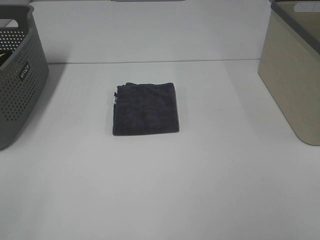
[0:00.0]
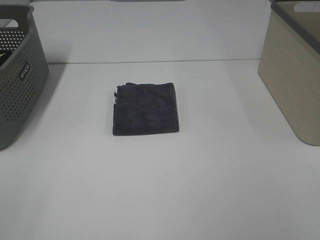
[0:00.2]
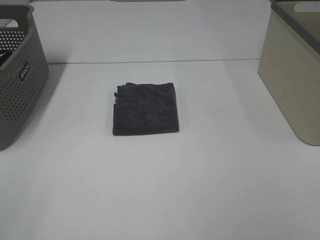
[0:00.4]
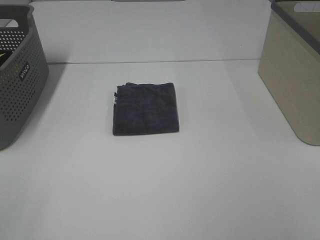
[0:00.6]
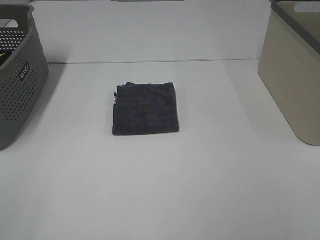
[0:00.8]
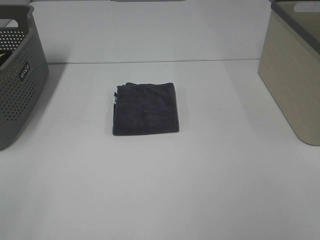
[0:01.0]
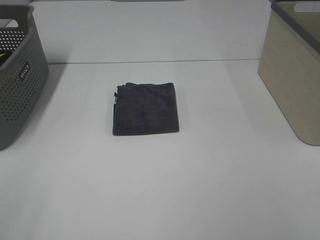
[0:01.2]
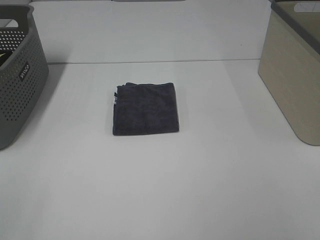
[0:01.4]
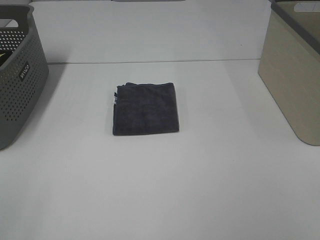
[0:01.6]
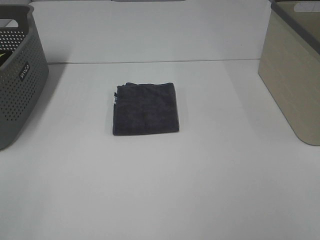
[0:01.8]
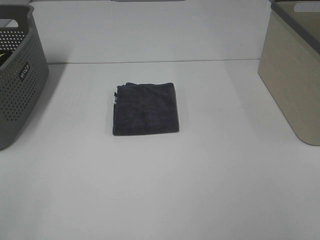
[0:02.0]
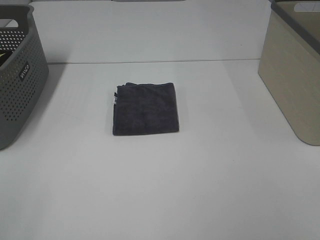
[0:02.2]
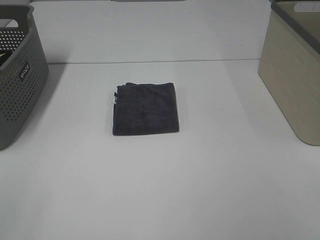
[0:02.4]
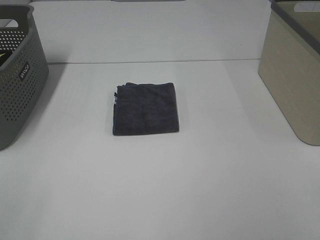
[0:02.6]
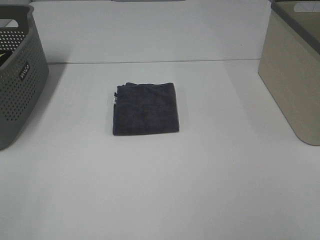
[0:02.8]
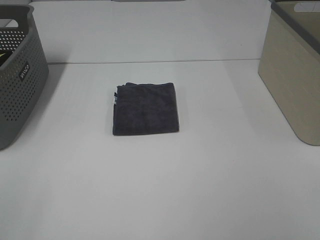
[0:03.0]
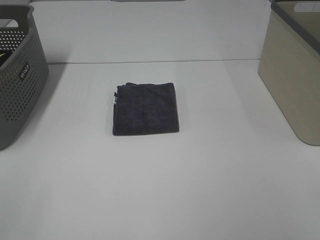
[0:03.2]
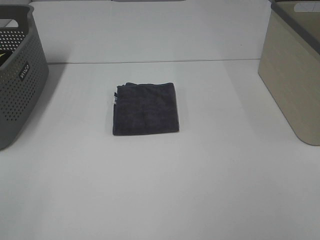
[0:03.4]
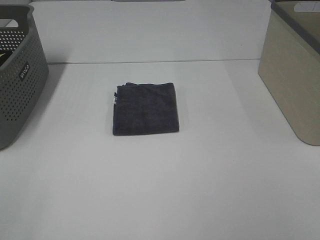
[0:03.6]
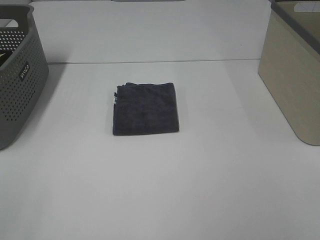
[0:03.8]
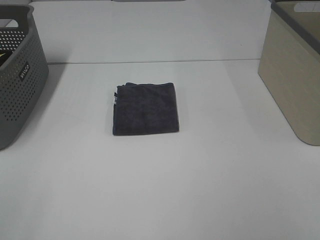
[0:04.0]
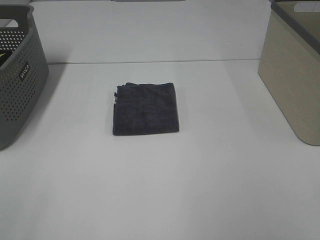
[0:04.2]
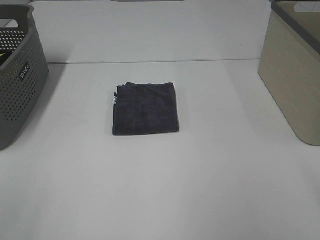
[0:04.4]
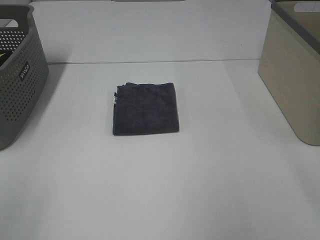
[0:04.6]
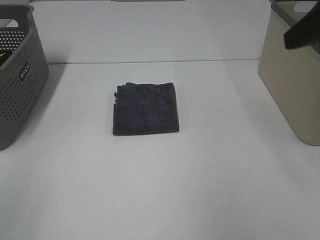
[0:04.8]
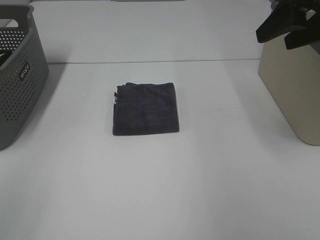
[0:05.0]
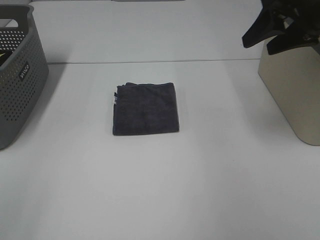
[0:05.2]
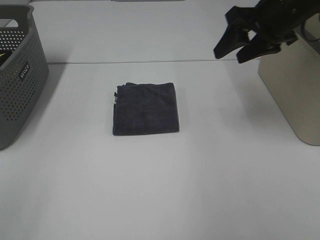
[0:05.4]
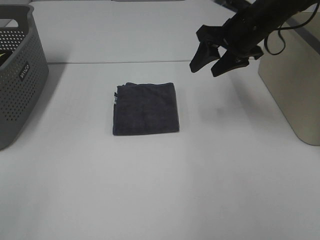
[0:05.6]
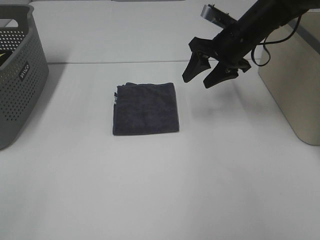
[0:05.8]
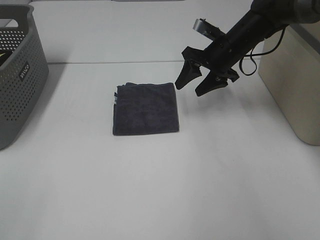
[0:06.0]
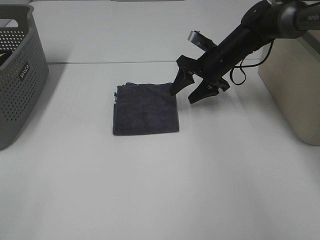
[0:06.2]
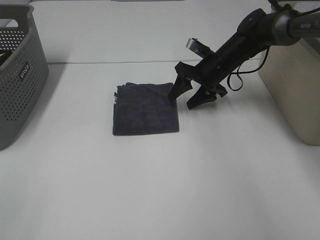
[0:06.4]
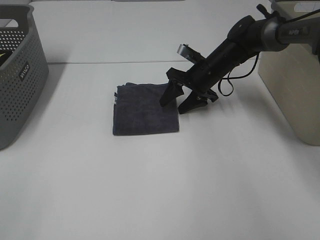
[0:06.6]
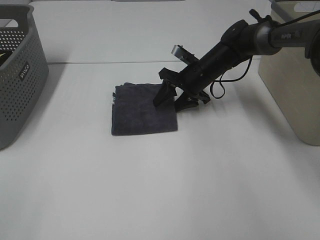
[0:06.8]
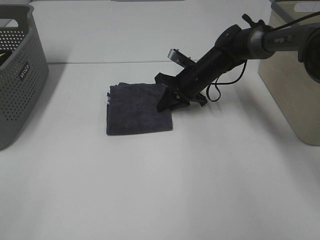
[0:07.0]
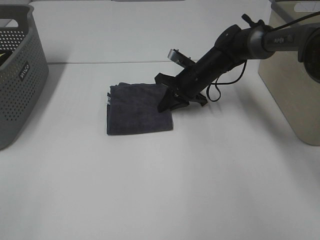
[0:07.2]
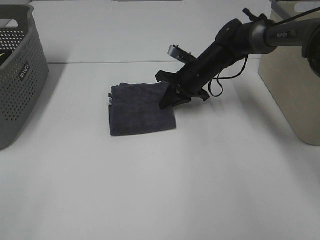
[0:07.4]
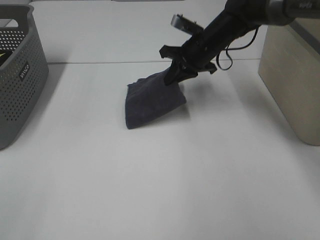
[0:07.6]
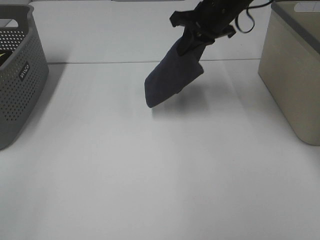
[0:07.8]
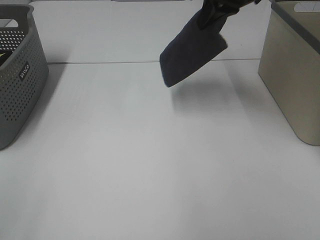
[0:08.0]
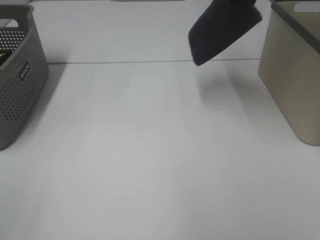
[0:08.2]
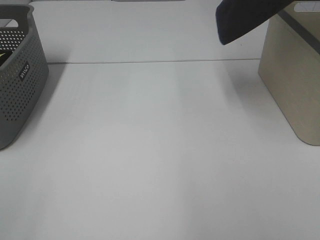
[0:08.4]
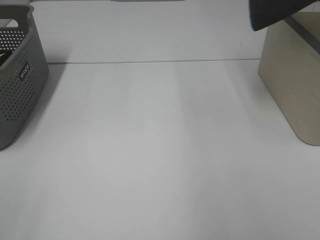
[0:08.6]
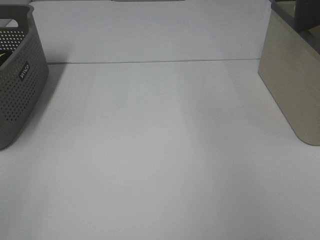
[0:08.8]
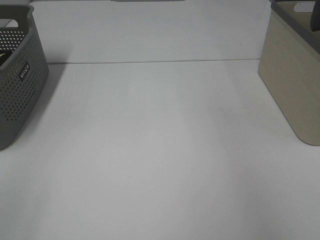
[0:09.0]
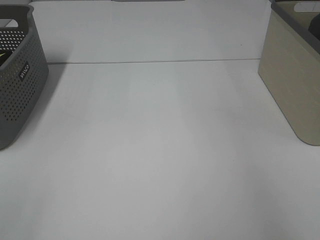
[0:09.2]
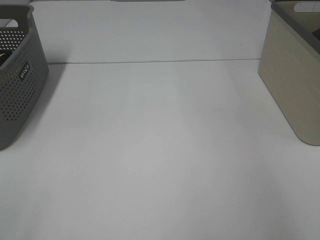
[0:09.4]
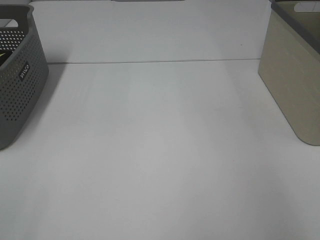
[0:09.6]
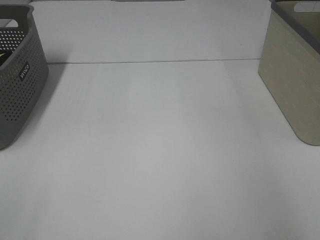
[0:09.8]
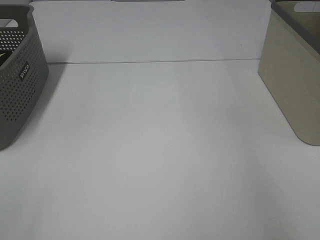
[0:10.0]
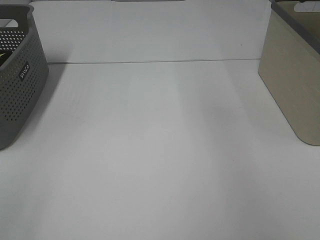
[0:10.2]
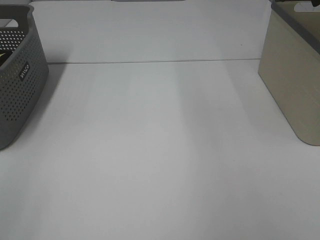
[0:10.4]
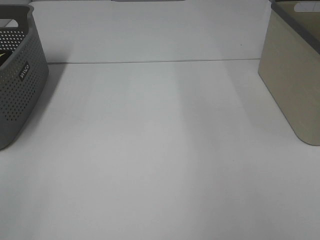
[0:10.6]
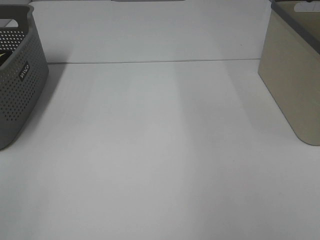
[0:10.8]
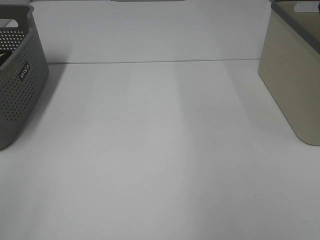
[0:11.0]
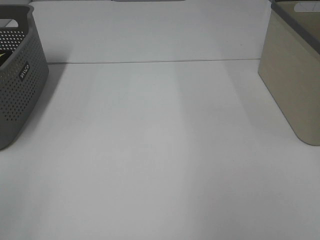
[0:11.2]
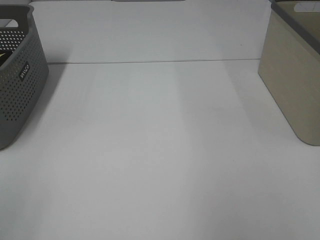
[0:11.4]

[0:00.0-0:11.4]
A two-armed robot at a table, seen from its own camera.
Step, 0:00.0 to 0:07.2: Right hand: grab the folded grey towel.
Step, 0:07.4 to 0:09.8: Right hand: place the grey towel in right basket.
0:00.0 to 0:02.8: Both grippers stay about where they are.
0:04.2 to 0:05.6: The right gripper goes roughly 35 cm forward.
0:05.6 to 0:07.2: The right gripper heads downward and to the left, covering approximately 15 cm, and closes its fingers.
0:07.2 to 0:08.6: The right gripper is displaced upward and to the right by roughly 40 cm.
0:08.6 to 0:10.0: The right gripper moves downward, to the right and forward, approximately 15 cm, and opens.

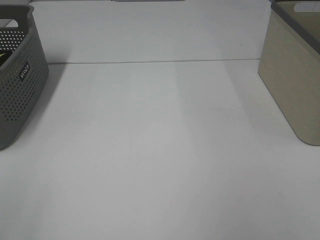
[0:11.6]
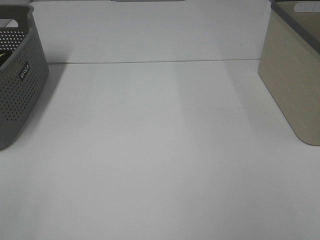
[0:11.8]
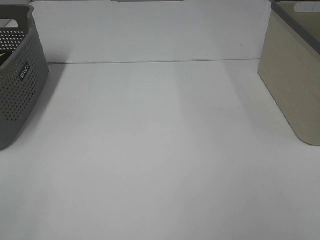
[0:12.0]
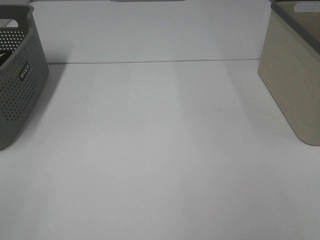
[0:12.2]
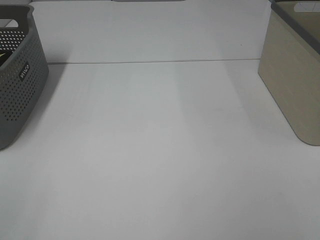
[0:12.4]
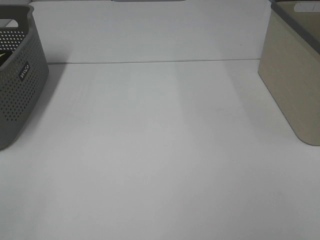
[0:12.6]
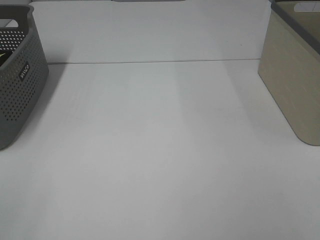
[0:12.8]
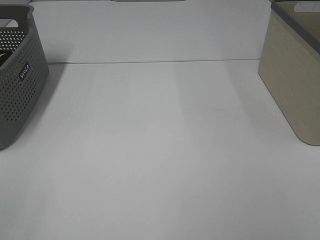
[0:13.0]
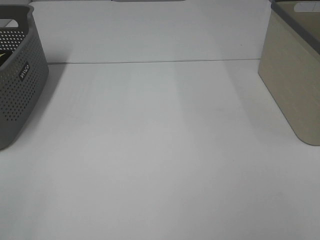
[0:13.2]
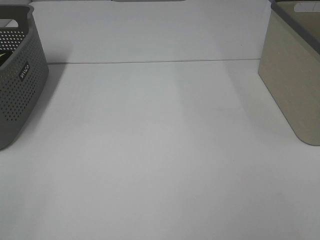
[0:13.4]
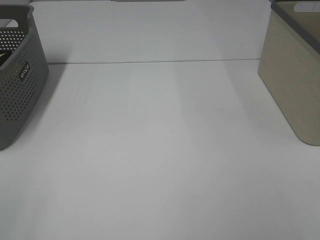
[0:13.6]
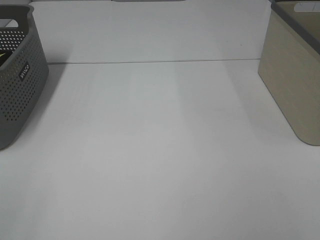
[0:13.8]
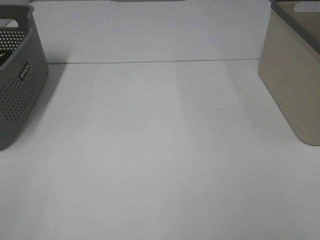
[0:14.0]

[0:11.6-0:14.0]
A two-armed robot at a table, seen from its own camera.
0:12.8 to 0:14.0: Neither gripper changes place.

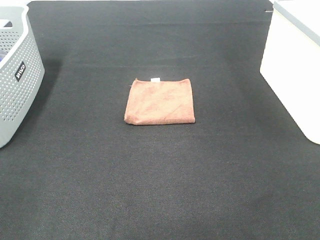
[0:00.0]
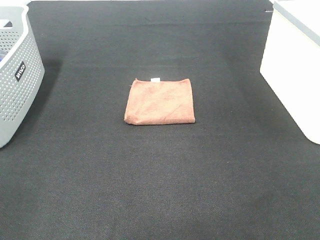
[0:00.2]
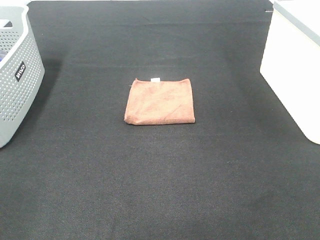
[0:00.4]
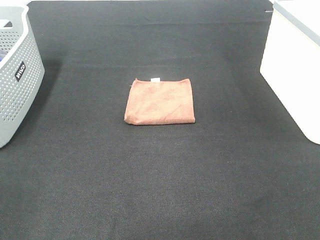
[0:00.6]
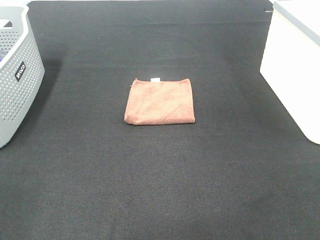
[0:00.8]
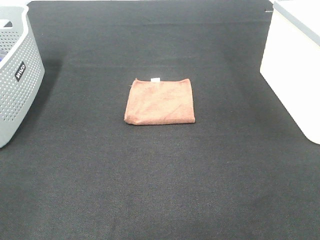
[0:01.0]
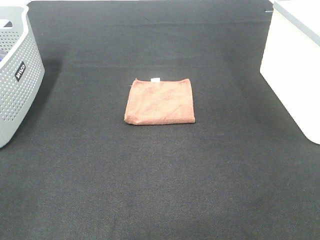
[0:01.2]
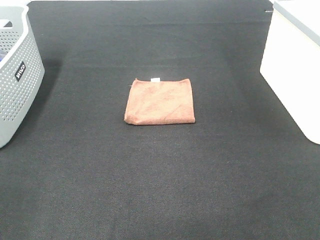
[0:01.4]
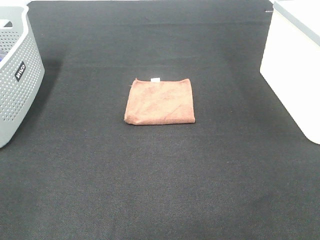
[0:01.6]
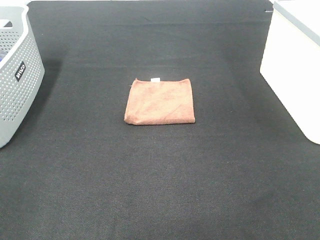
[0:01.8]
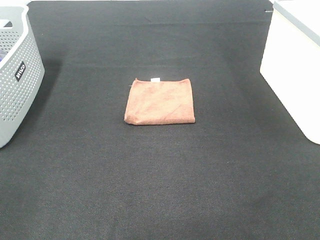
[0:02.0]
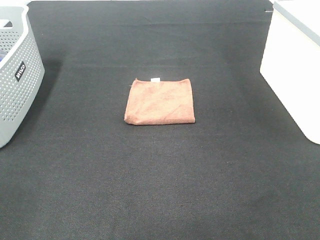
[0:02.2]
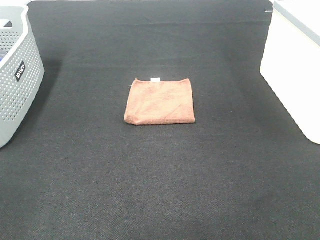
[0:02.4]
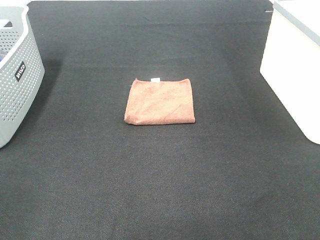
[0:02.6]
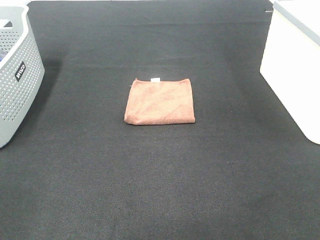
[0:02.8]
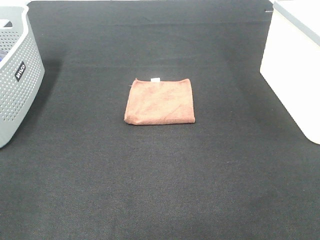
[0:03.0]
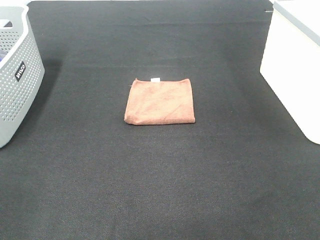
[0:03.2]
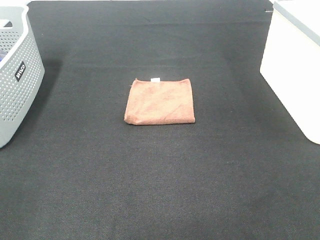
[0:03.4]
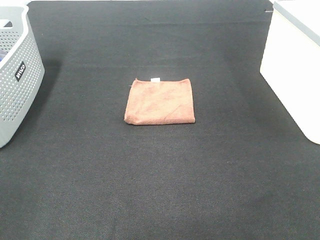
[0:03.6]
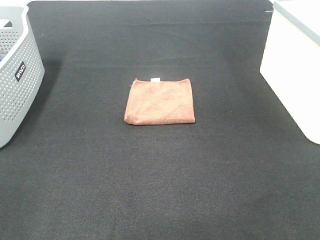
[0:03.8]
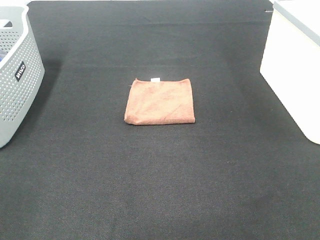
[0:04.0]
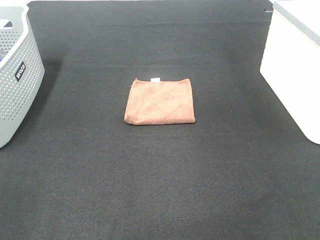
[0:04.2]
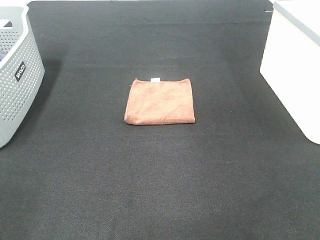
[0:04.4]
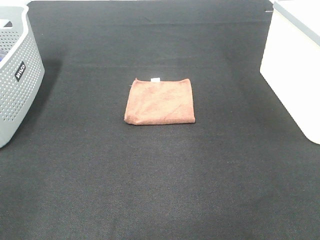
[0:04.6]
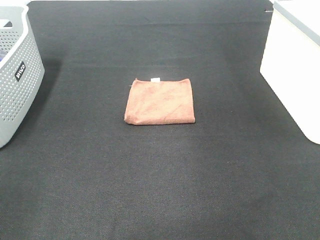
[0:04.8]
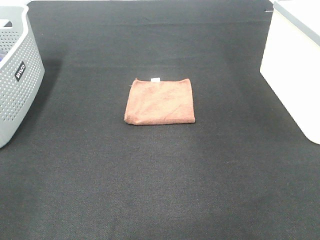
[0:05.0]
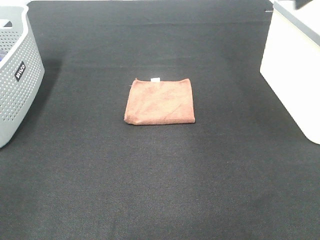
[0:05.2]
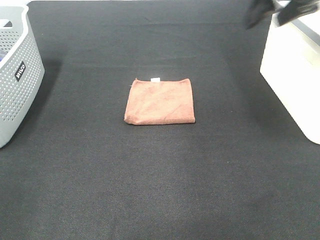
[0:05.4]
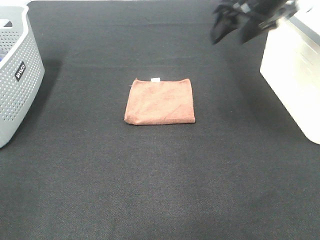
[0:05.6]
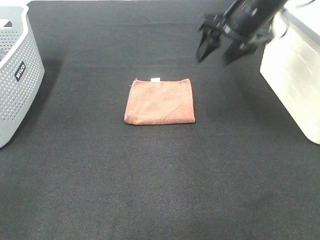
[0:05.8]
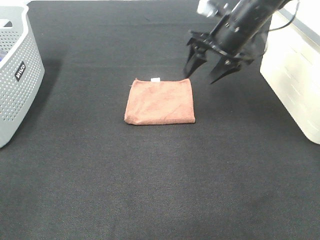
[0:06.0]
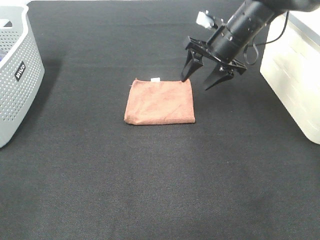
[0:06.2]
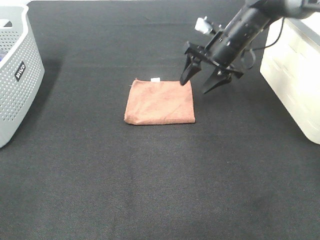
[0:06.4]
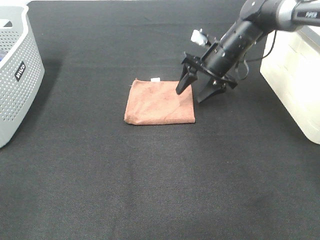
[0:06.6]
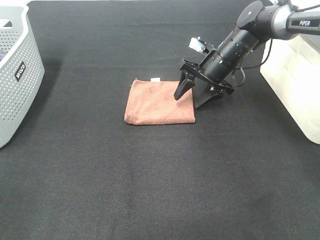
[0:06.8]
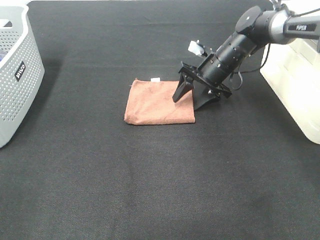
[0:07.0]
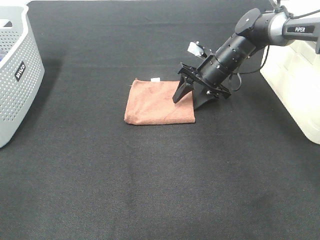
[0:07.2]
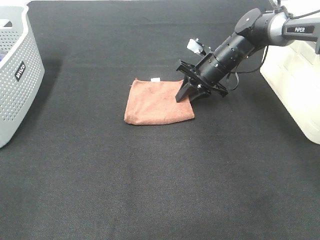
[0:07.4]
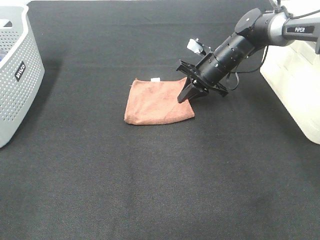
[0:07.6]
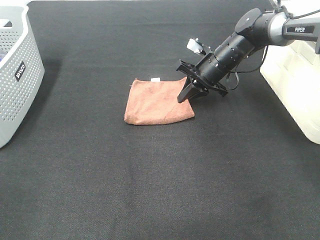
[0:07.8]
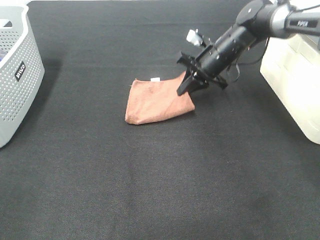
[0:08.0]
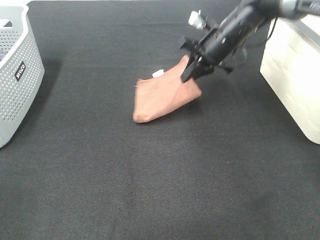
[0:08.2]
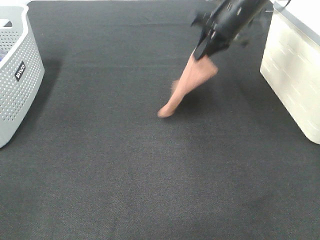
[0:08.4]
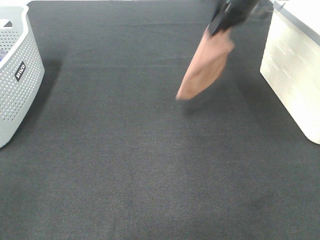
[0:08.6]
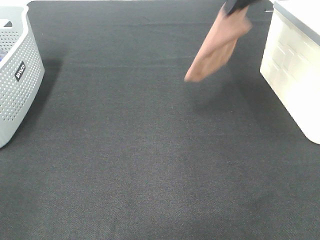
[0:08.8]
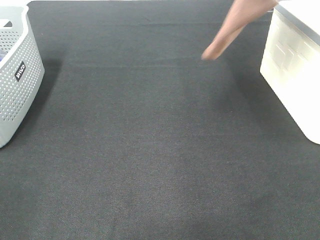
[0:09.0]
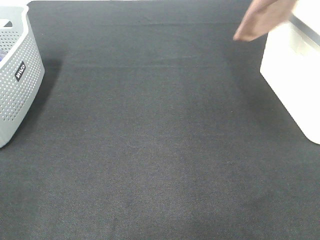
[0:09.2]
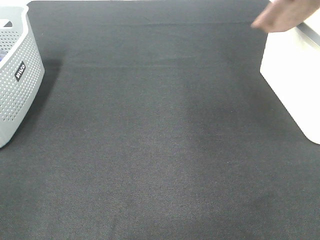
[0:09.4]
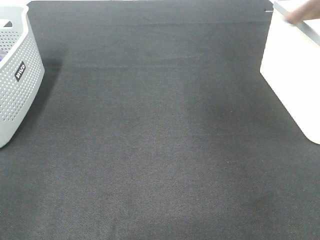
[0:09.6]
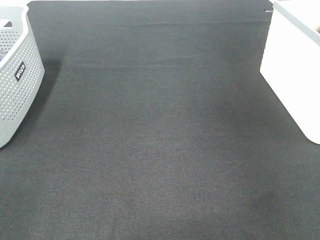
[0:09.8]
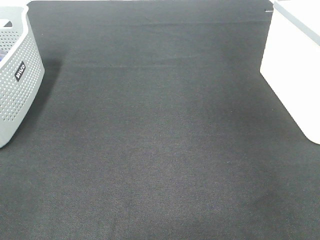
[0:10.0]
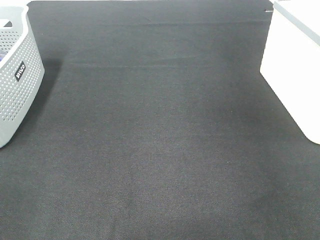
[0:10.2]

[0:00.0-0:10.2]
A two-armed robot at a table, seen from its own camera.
Step, 0:00.0 to 0:07.8: Right hand: grab the folded brown towel.
0:00.0 to 0:03.0: The two grippers keep their place.
0:04.4 to 0:05.8: The right gripper is displaced forward, to the left and downward by about 35 cm.
0:05.8 to 0:07.2: The right gripper heads downward and forward, covering about 15 cm.
0:07.2 to 0:08.8: The right gripper moves upward, some 25 cm, and closes up.
0:08.8 to 0:10.2: The right gripper heads to the right, covering some 20 cm.
